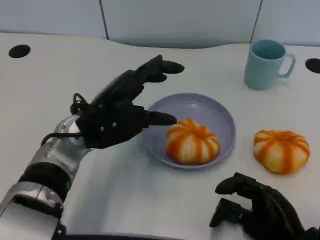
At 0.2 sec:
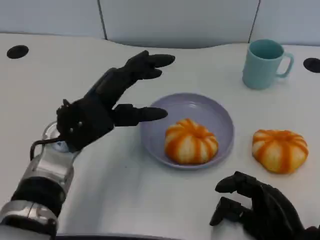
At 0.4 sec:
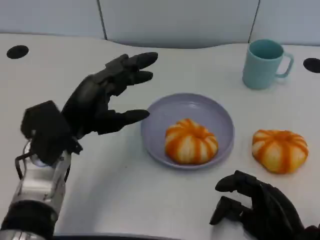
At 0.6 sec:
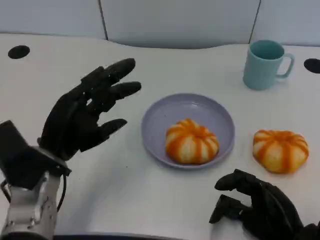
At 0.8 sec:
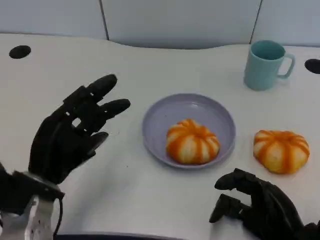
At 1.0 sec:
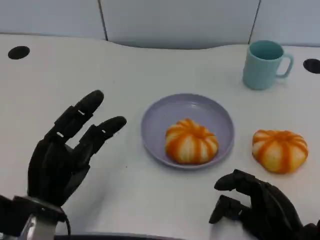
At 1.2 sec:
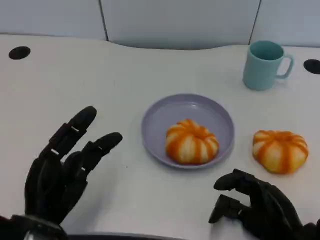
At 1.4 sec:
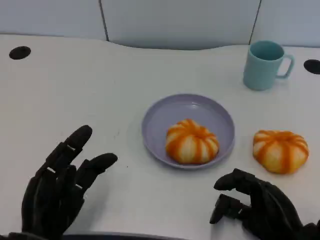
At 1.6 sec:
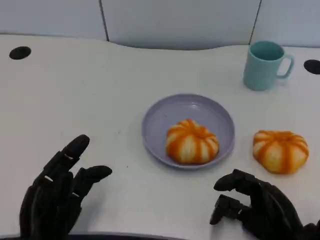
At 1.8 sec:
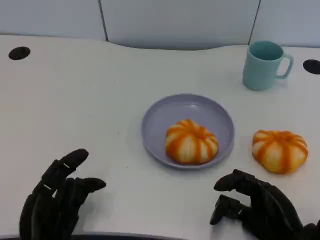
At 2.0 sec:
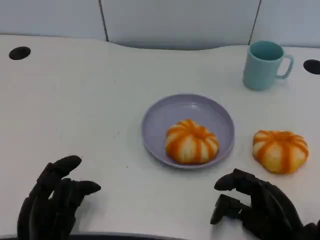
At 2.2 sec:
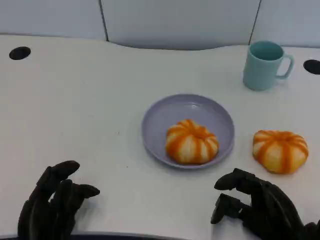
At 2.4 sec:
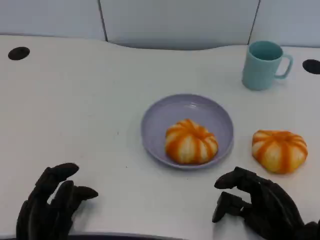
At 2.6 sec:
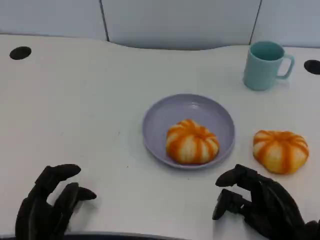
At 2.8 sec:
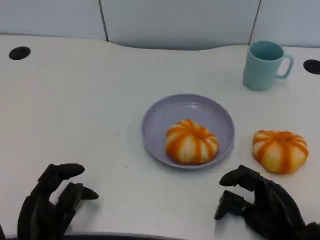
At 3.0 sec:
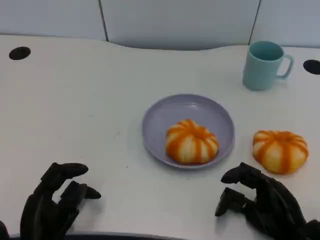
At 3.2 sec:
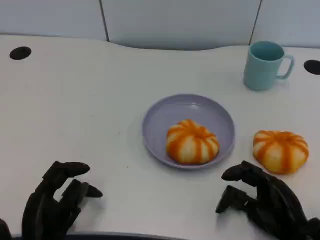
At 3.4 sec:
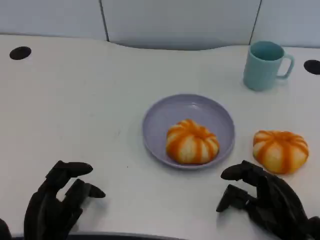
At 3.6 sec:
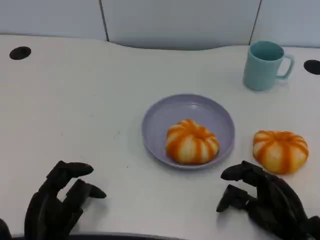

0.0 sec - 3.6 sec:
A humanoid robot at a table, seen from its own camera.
Task of the whole recording: Grasp the bread from the table and place it into the plate.
0.0 sec - 1.8 sec: The left hand goes about 20 cm backward, downward and to the left.
1.8 sec - 3.6 sec: There are only small adjustments of the hands.

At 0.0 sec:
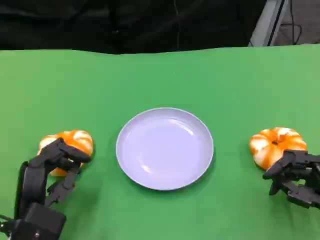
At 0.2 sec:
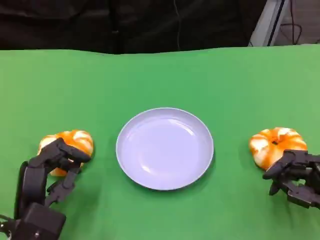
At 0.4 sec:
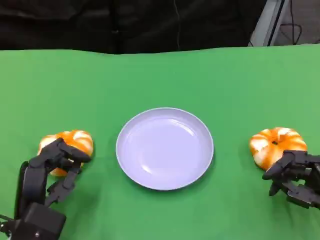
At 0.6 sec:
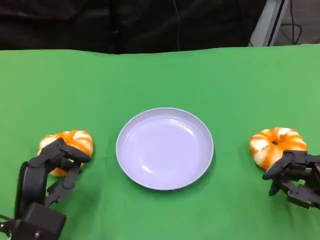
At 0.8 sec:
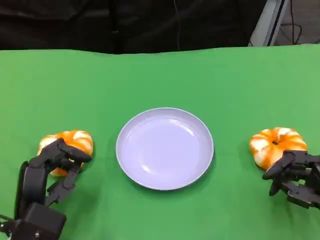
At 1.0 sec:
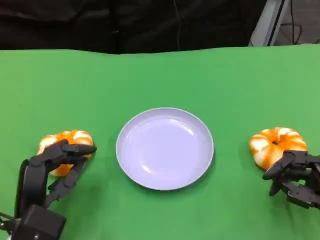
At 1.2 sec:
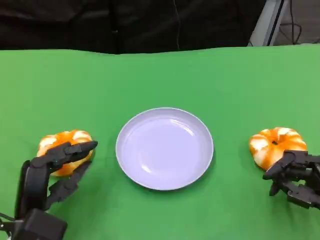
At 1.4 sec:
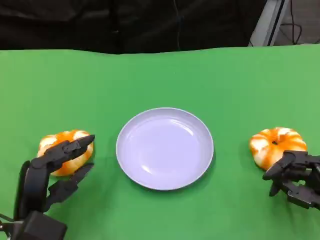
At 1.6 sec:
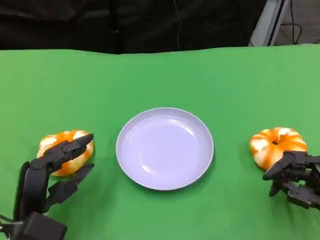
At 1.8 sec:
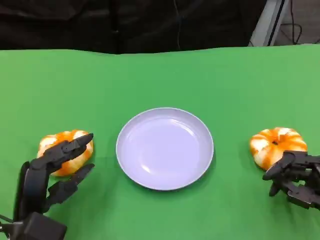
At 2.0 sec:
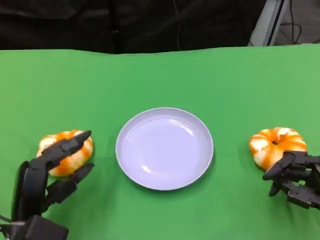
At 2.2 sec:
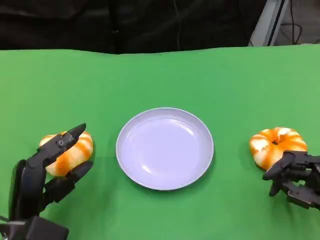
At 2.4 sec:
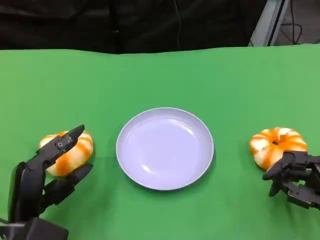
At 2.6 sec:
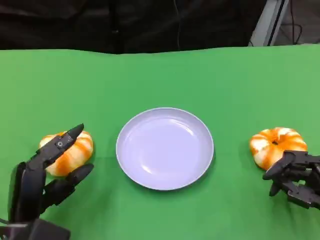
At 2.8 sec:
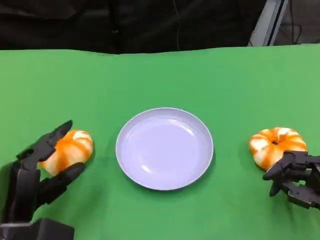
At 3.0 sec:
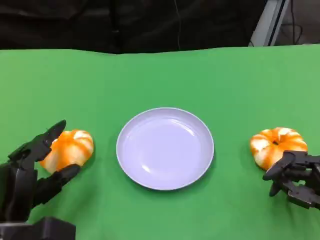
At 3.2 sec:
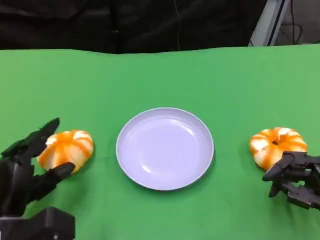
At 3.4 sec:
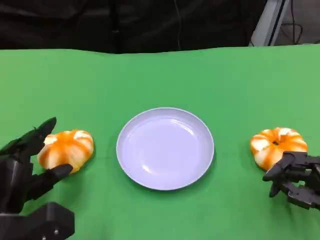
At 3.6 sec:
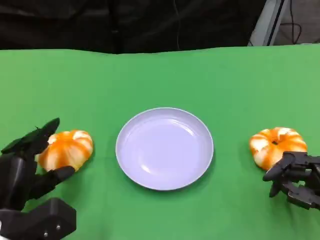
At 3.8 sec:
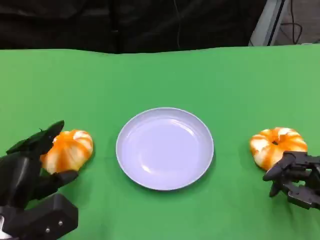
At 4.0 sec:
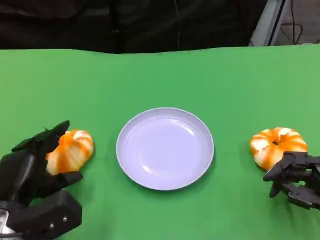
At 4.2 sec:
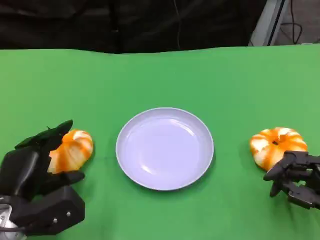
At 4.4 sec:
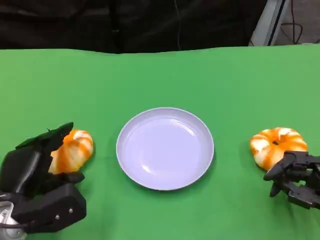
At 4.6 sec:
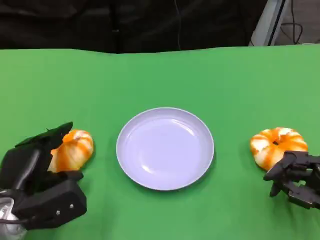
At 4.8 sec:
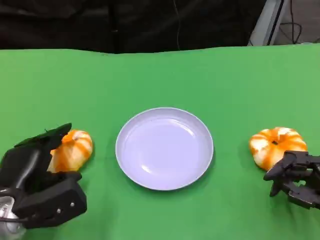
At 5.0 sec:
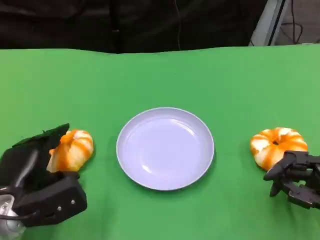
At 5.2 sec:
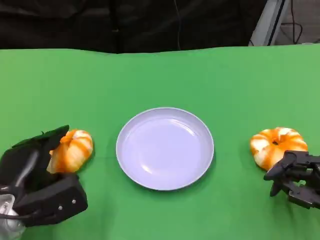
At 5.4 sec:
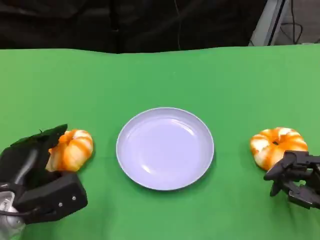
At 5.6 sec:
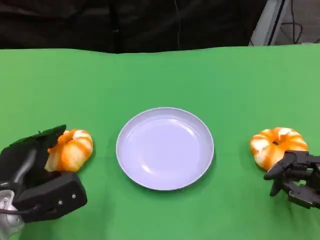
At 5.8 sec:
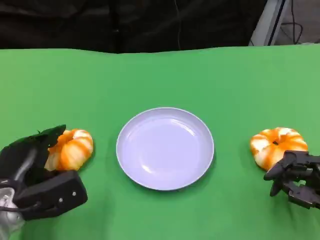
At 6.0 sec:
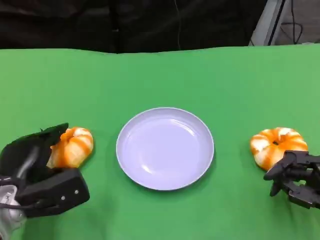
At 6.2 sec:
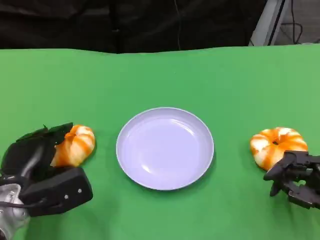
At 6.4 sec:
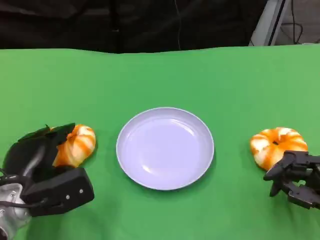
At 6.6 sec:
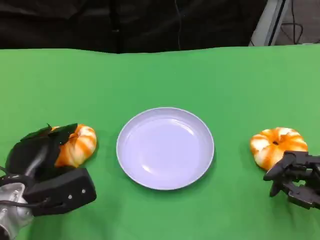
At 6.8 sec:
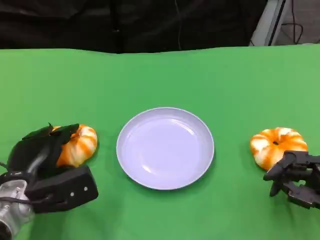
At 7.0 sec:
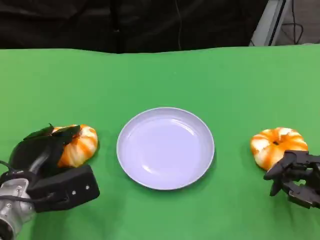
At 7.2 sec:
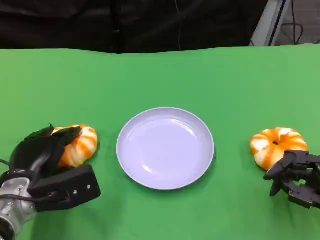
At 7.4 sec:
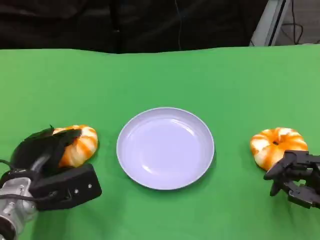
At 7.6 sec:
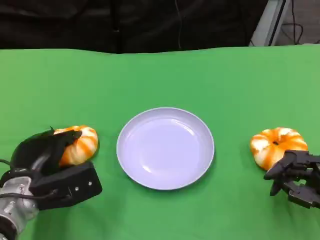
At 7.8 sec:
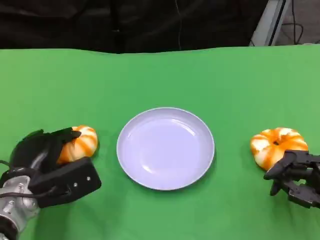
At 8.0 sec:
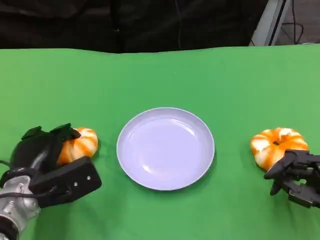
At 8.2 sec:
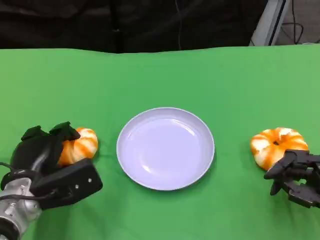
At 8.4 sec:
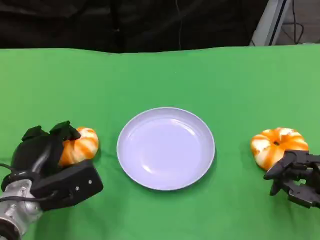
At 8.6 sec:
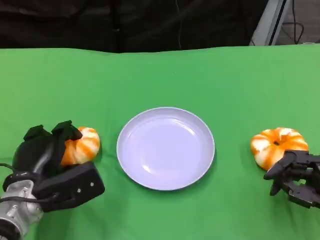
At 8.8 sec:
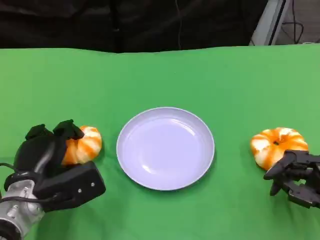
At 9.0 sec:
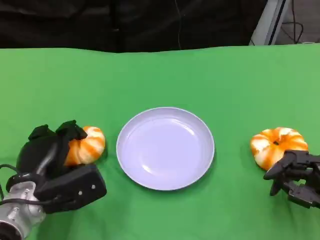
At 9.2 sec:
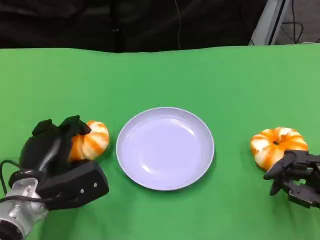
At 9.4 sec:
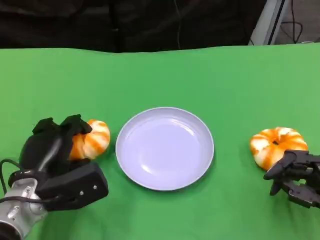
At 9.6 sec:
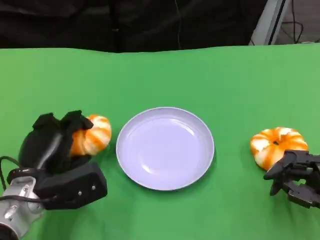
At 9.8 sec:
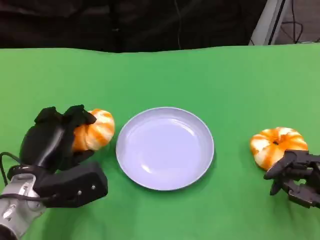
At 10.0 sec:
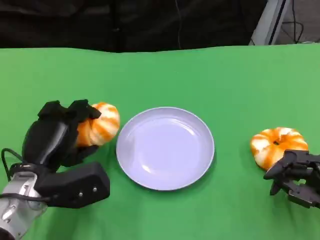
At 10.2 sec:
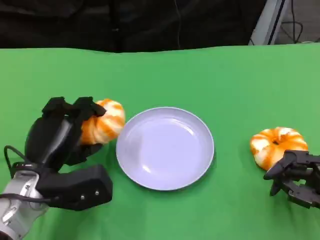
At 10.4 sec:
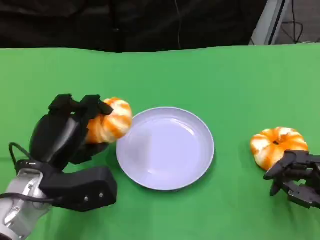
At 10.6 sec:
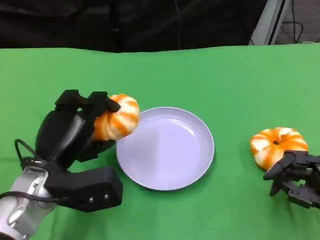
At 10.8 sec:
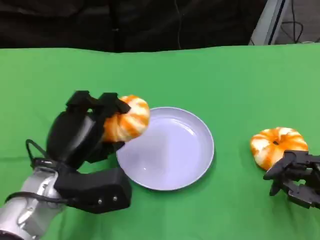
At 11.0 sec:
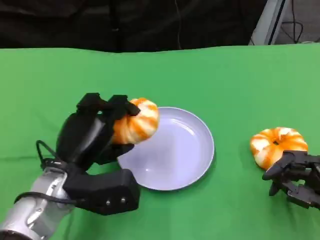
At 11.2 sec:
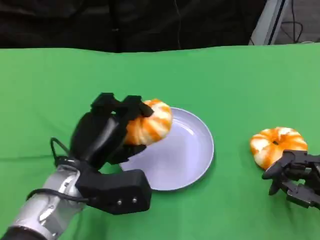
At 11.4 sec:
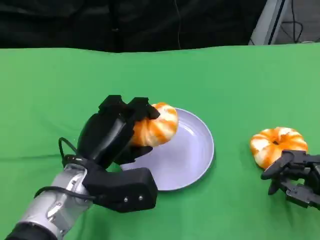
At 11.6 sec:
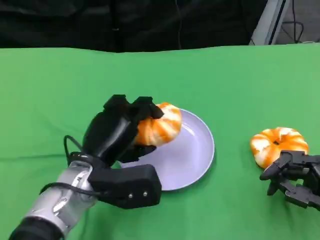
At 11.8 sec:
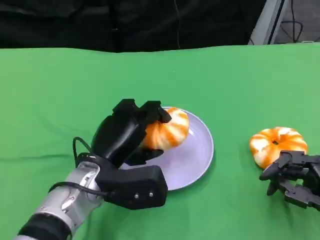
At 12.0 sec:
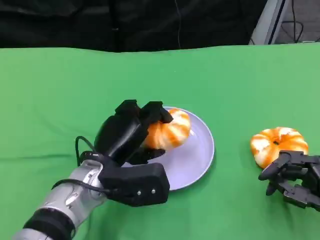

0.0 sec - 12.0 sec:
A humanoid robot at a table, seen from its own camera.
Task of the whole recording: Grasp the bread from the table and place it into the plate.
0.0 sec - 1.6 sec: The hands move only a little.
4.4 sec - 9.0 sec: The hands stay close to where they were, moving slightly.
9.0 sec - 10.4 sec: The left hand ends up some 5 cm from where it was.
10.4 sec - 12.0 sec: The left hand shifts some 10 cm to the right.

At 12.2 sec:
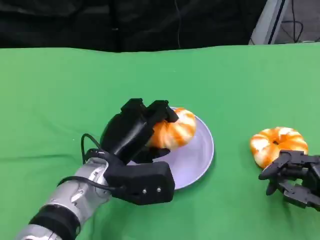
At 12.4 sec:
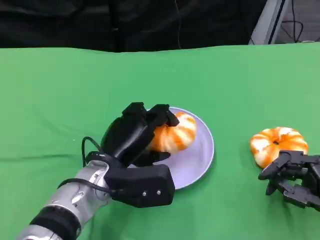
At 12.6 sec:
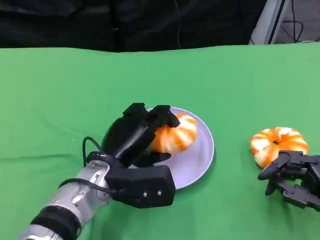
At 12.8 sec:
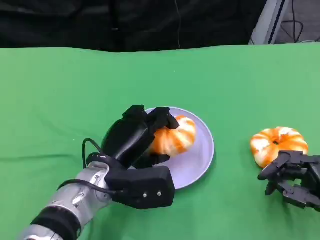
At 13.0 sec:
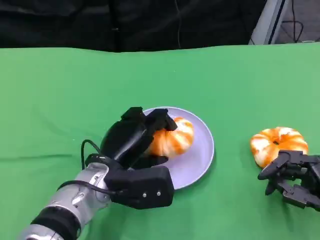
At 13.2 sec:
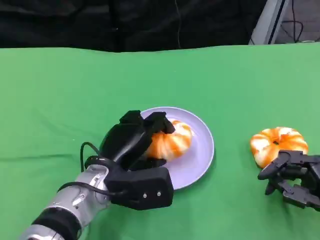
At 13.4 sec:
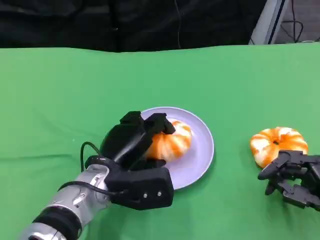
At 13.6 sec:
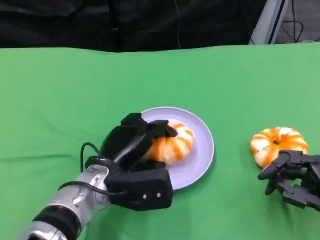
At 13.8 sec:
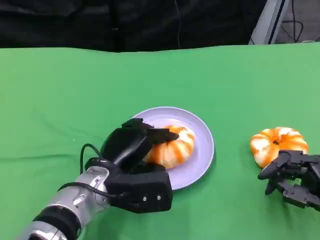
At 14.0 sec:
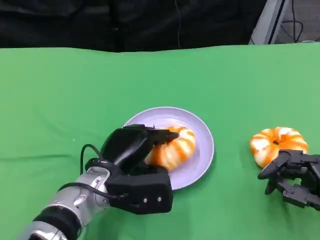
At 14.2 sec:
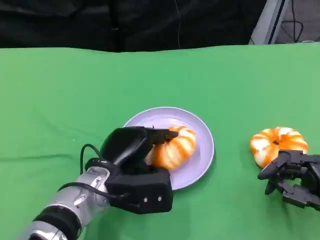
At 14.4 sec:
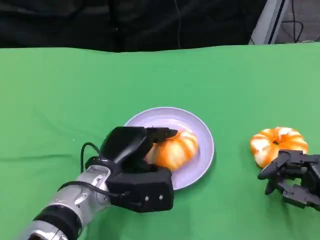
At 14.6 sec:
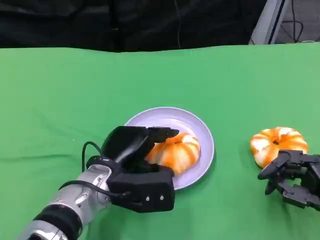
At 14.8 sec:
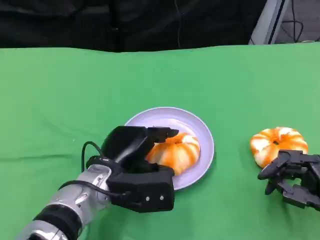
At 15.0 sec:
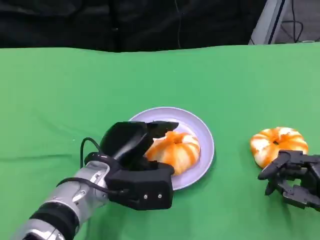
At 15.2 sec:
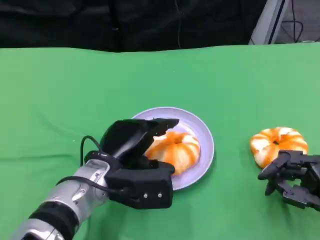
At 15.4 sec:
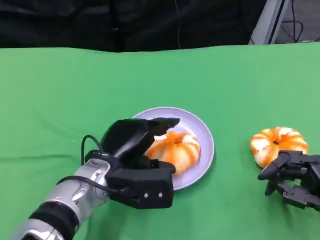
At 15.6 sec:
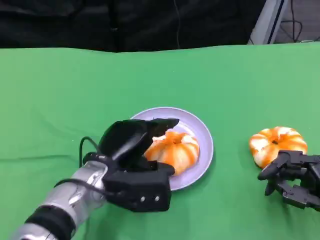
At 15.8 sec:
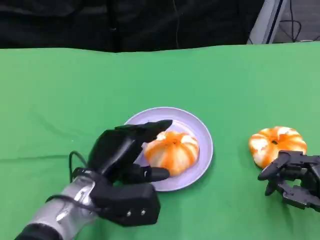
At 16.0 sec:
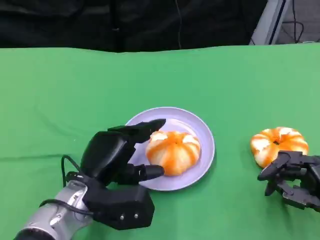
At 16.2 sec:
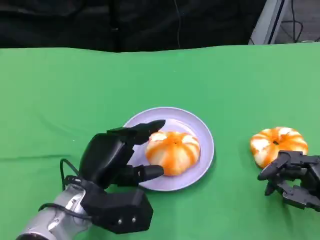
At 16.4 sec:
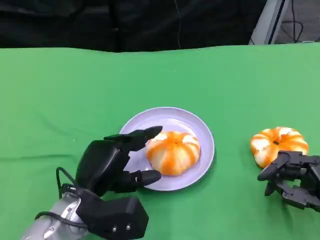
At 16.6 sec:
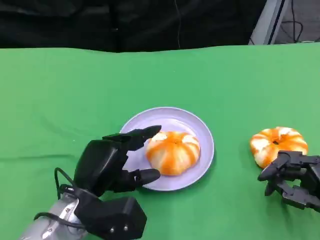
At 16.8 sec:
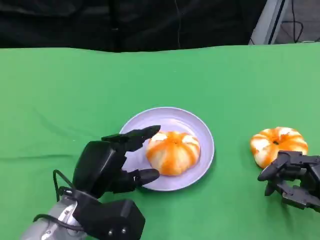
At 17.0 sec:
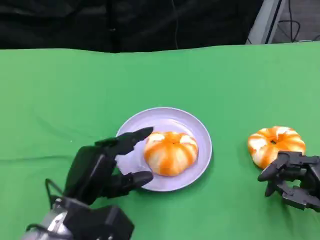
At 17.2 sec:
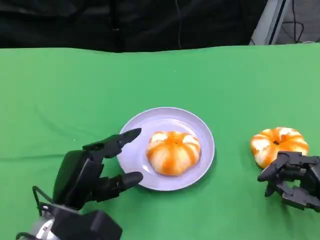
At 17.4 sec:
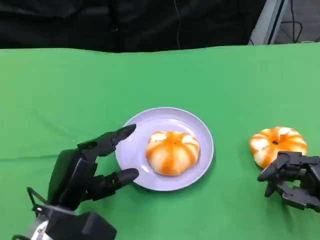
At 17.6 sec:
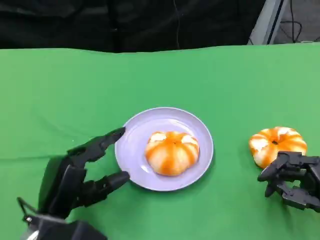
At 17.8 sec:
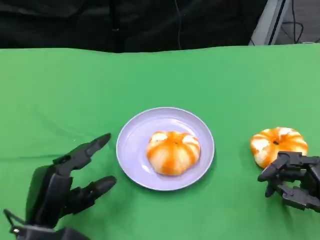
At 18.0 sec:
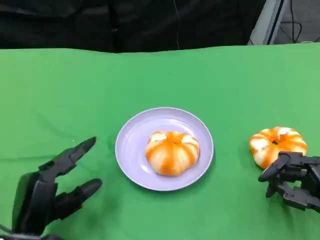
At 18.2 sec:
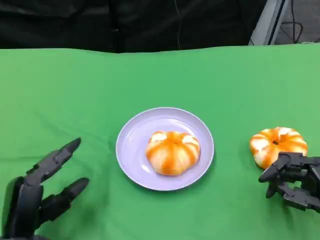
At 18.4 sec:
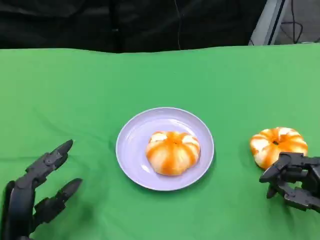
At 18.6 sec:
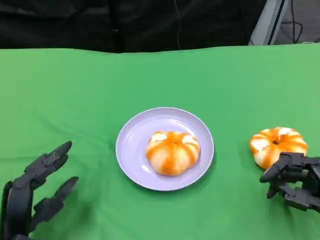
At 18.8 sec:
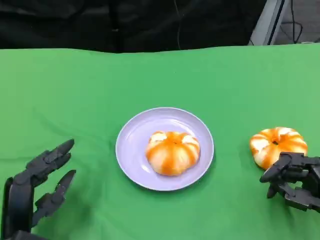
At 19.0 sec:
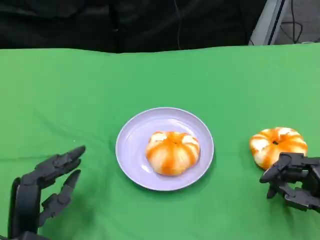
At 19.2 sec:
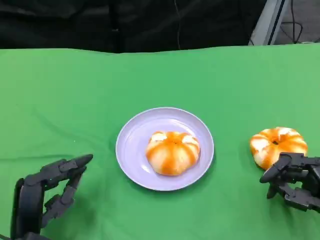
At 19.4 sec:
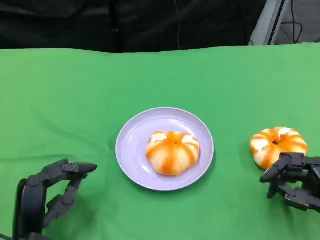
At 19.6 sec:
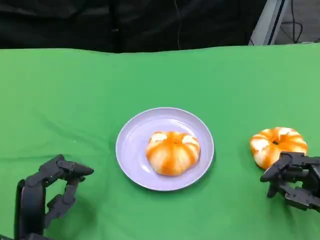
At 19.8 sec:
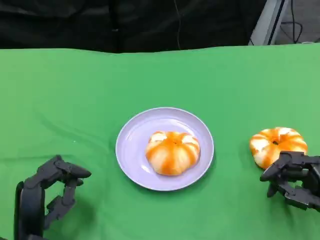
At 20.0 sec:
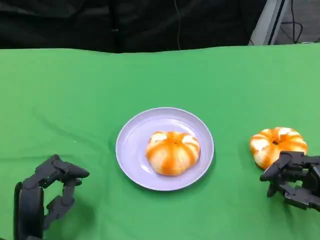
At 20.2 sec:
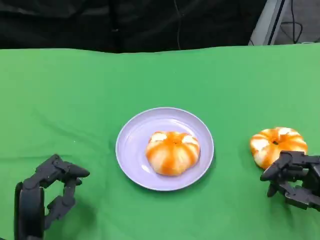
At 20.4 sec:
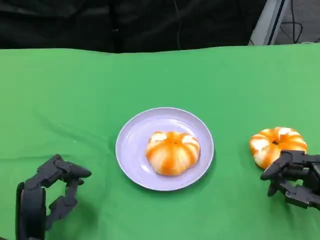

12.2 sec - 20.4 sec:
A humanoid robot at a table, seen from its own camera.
Task of the whole recording: Grasp the bread from the table and place it into the plate.
12.2 sec - 13.8 sec: The hands stay close to where they were, moving slightly.
13.8 sec - 15.4 sec: Neither hand changes place.
15.4 sec - 17.2 sec: The left hand goes some 10 cm to the left and backward.
17.2 sec - 18.8 sec: The left hand moves about 5 cm.
18.8 sec - 20.4 sec: The hands move only a little.
